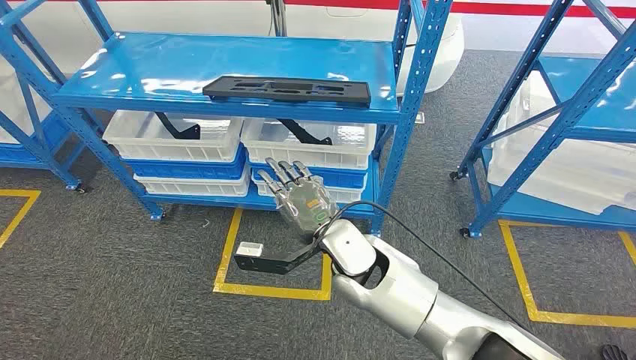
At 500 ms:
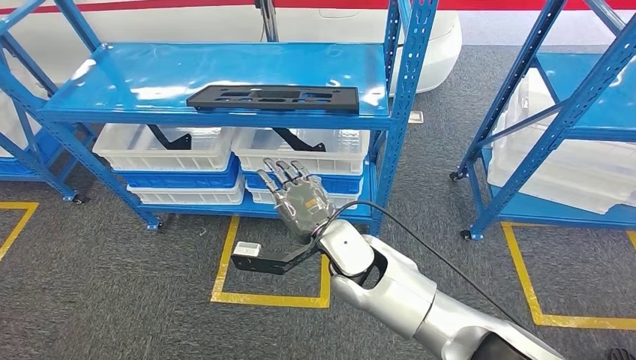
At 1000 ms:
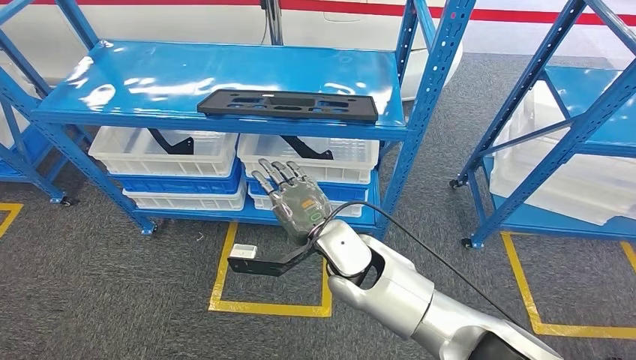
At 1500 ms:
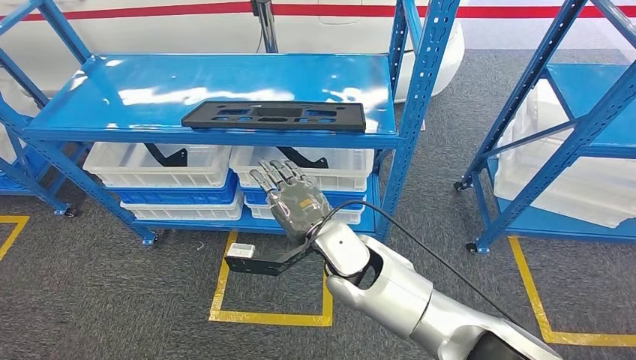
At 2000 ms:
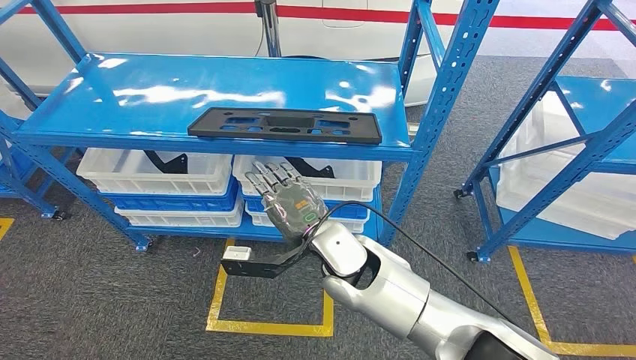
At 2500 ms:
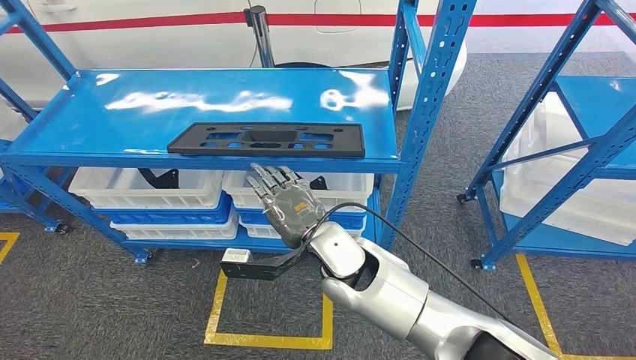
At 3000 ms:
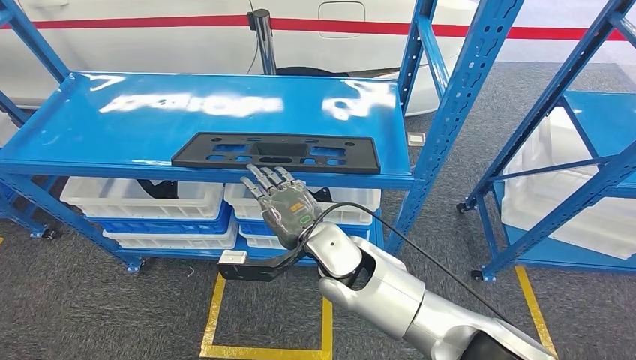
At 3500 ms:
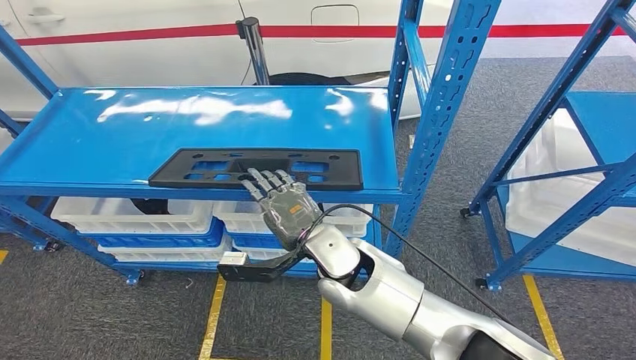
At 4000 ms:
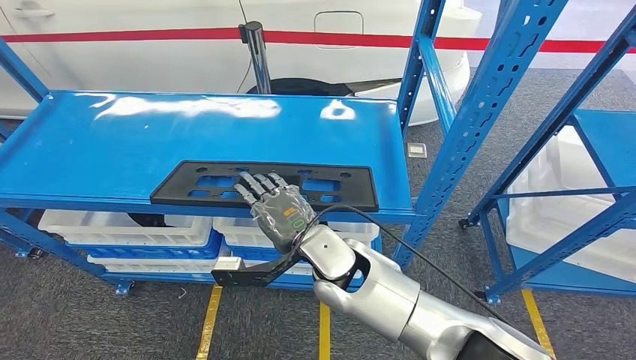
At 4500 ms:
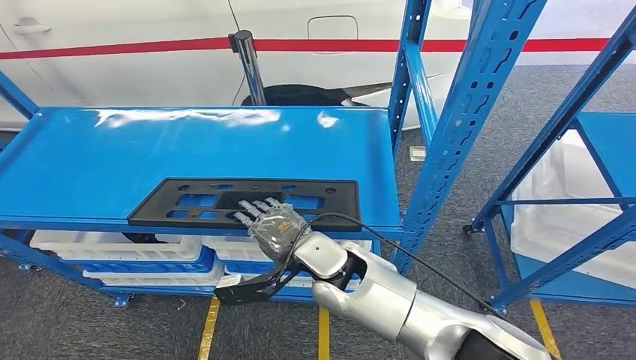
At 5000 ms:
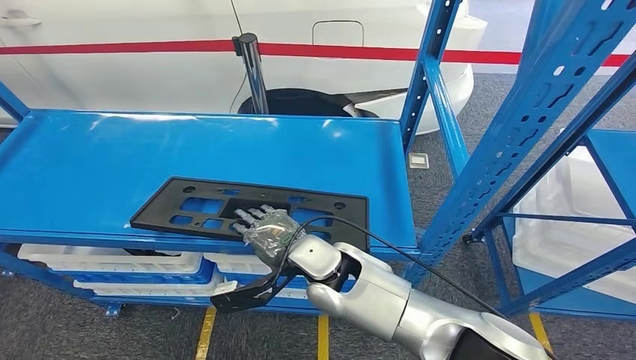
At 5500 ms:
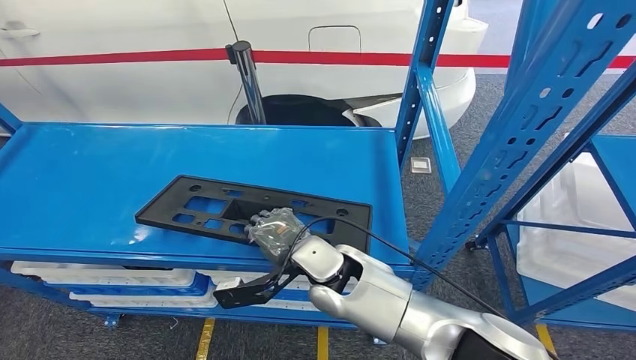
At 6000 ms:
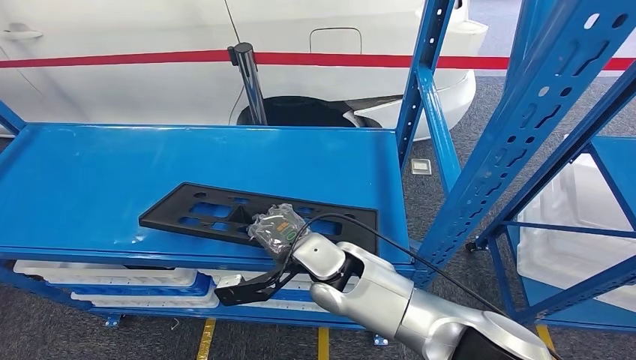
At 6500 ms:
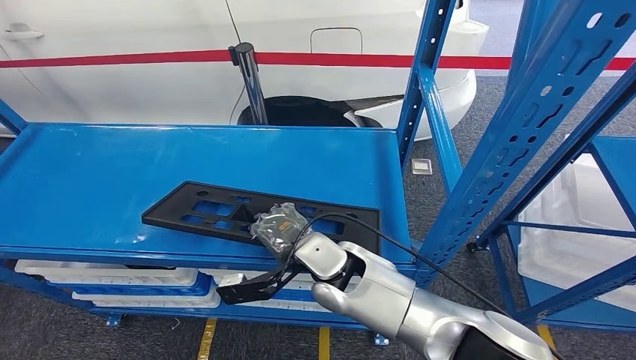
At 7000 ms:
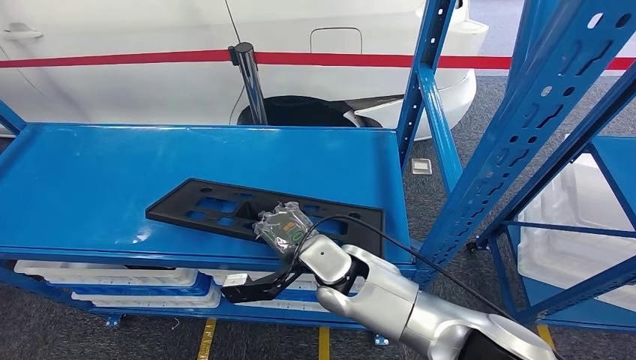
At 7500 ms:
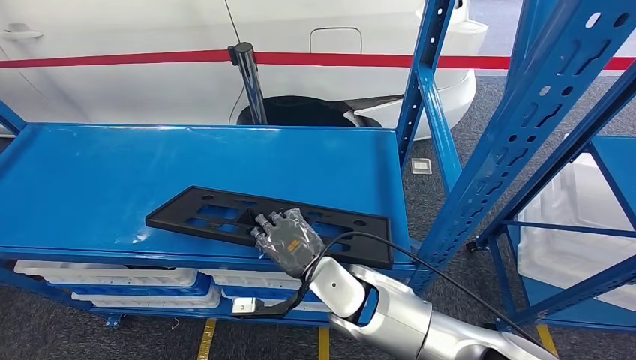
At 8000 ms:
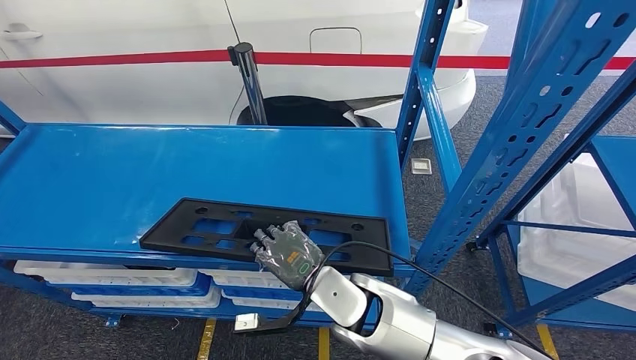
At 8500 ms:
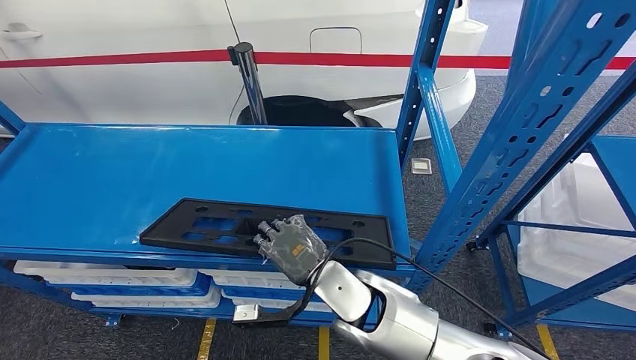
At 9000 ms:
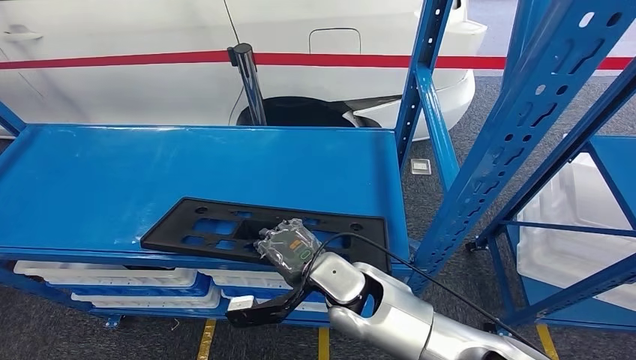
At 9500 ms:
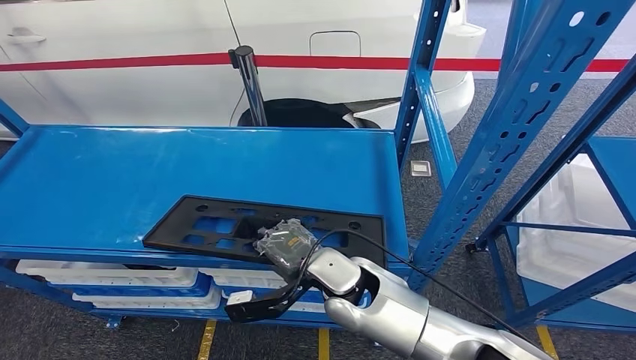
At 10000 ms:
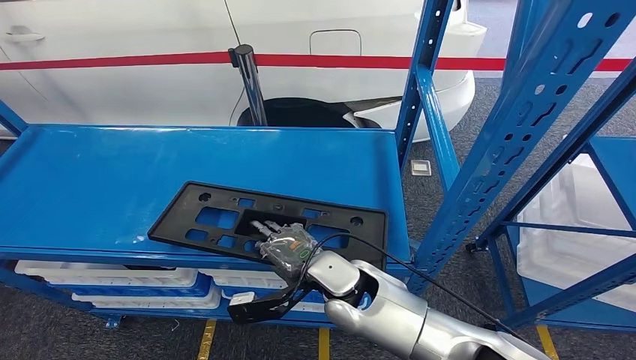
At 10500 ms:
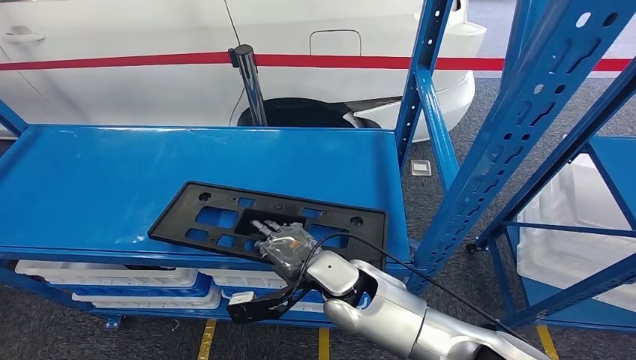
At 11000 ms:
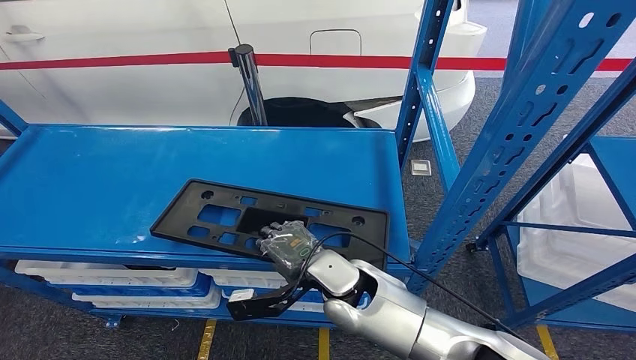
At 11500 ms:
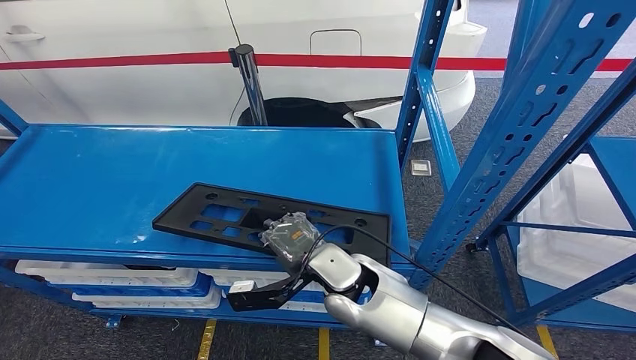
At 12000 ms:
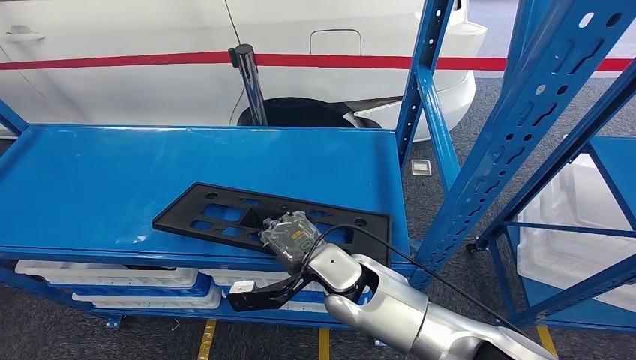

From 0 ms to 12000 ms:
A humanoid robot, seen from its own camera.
From 6000 ms to 8000 ms: The right hand ends up some 5 cm from where it was.
From 10000 ms to 12000 ms: There are only small adjustments of the hands.

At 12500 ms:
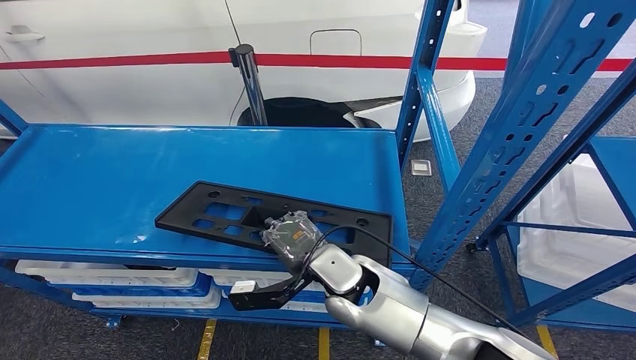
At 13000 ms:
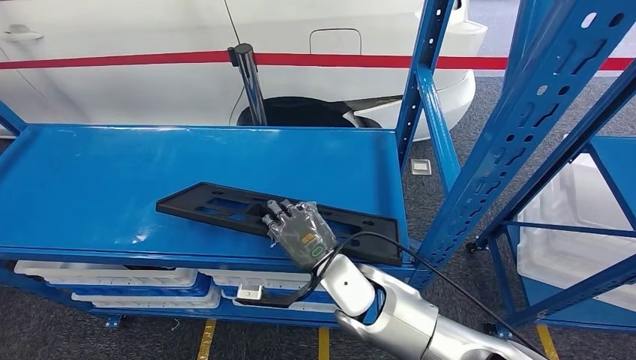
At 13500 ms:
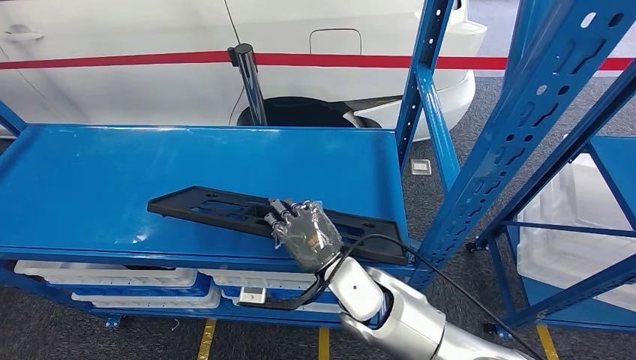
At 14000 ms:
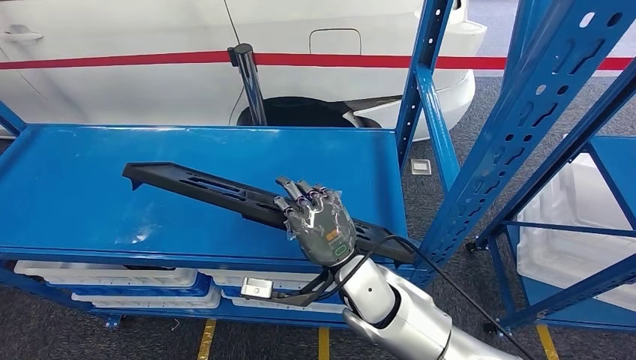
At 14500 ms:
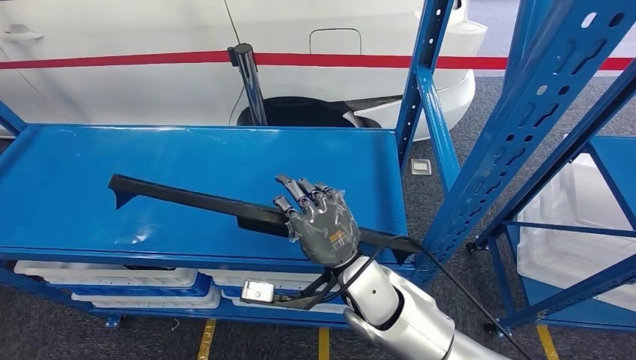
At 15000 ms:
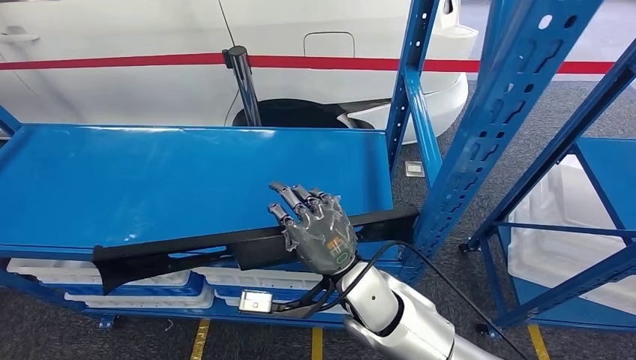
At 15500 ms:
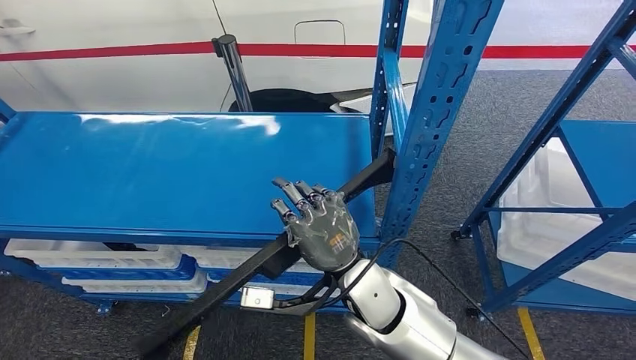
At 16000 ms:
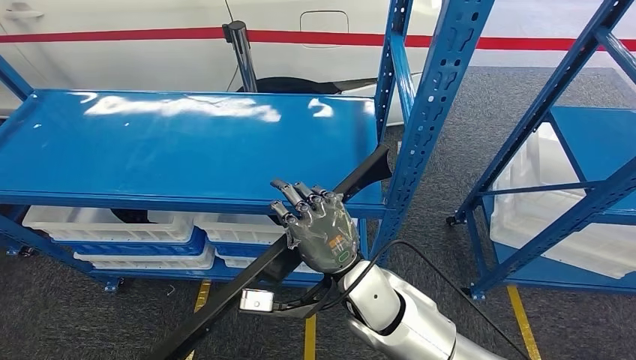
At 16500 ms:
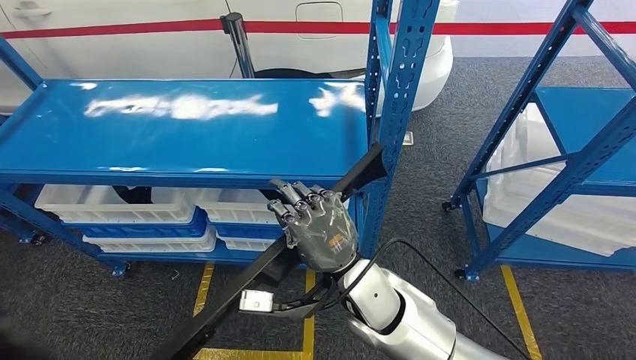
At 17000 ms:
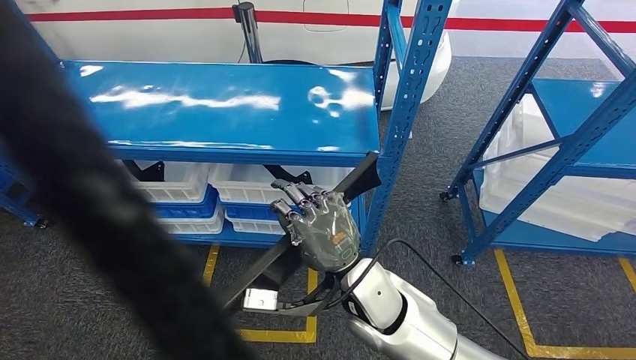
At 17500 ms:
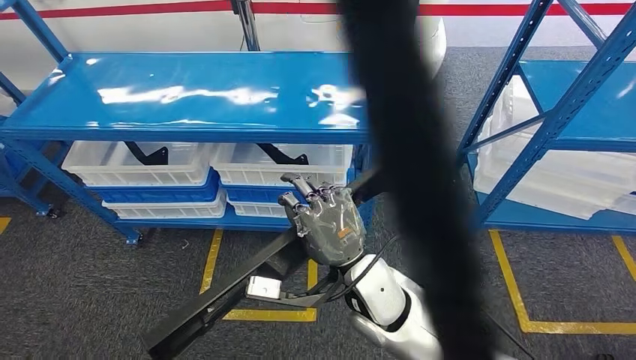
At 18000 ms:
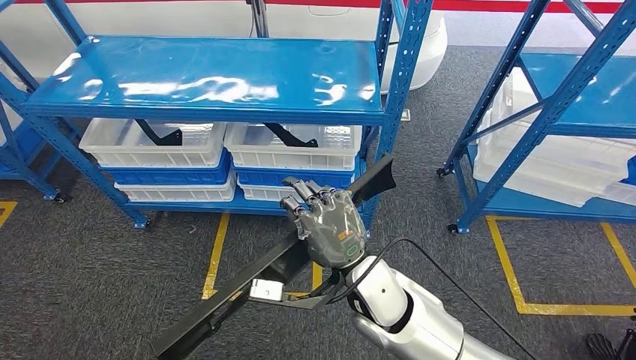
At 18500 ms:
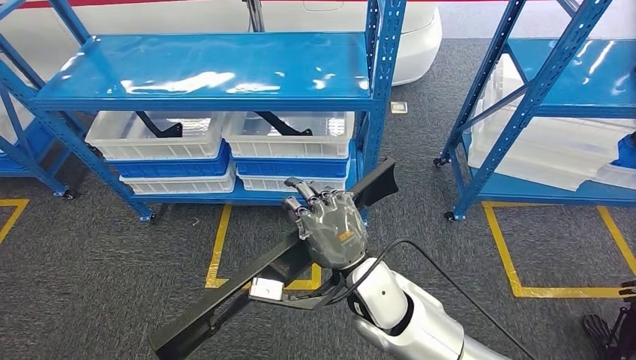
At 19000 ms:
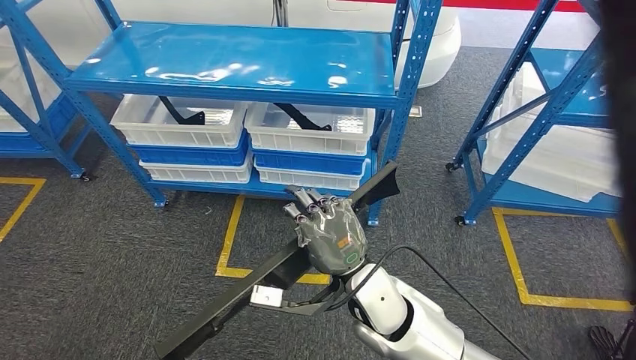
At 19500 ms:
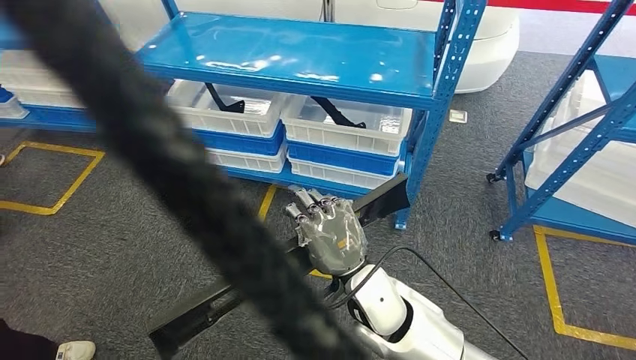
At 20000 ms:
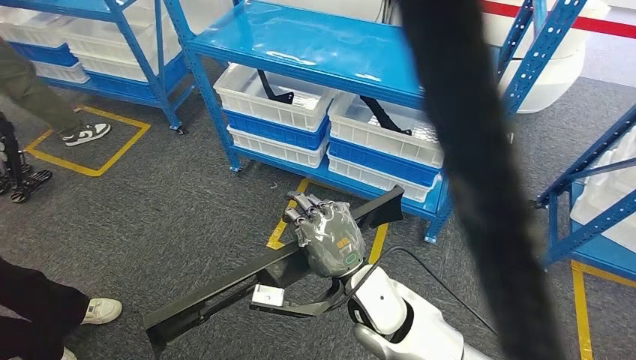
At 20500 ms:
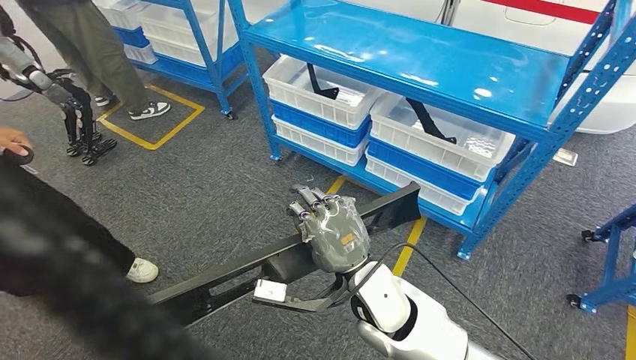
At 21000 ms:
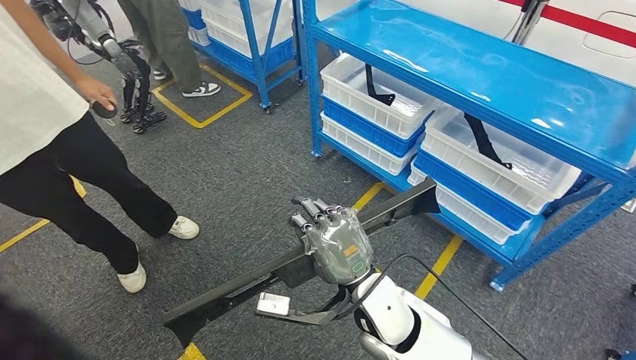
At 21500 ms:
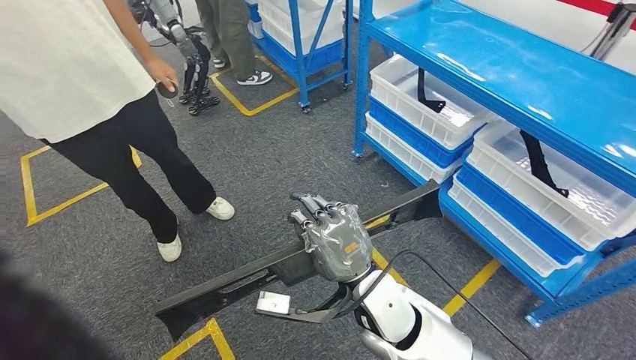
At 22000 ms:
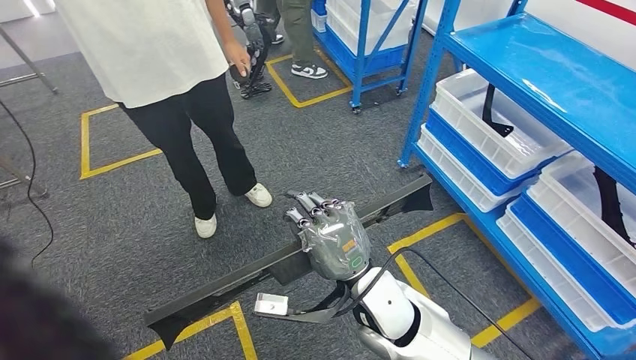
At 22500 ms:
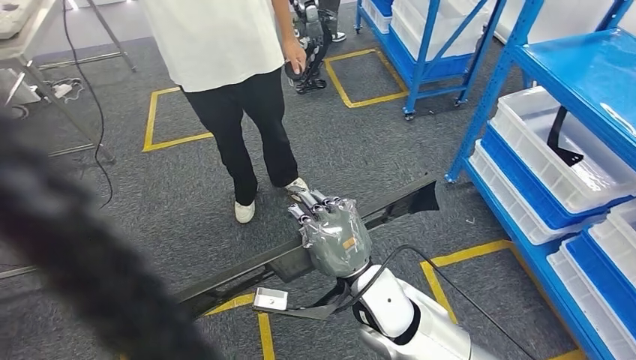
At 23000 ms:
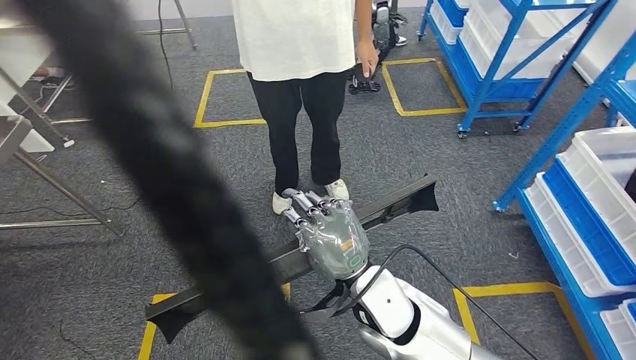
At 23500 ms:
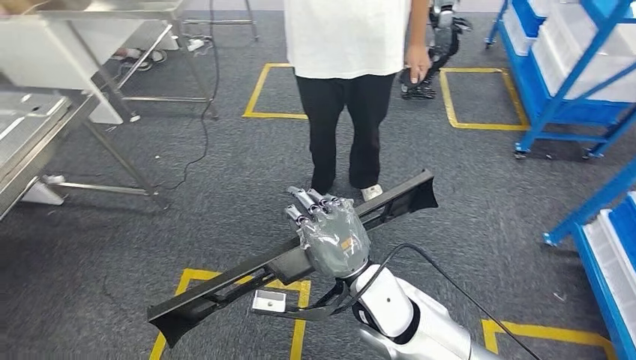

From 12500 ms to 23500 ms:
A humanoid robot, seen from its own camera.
Step, from 12500 ms to 17500 ms: Pick up the large parts from the shelf.
From 12500 ms to 14500 ms: The right hand ends up roughly 5 cm from where it was.
